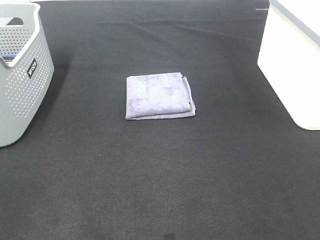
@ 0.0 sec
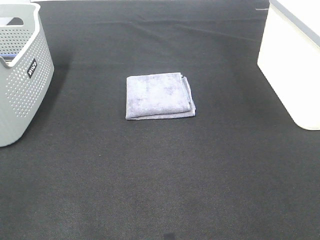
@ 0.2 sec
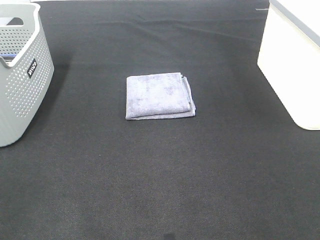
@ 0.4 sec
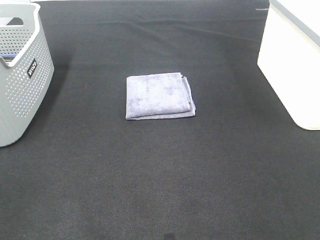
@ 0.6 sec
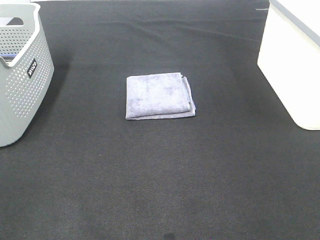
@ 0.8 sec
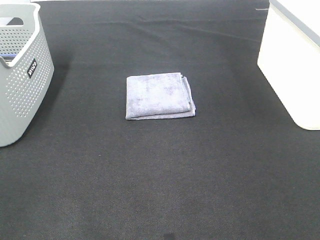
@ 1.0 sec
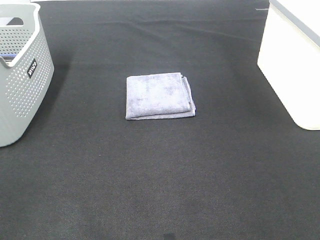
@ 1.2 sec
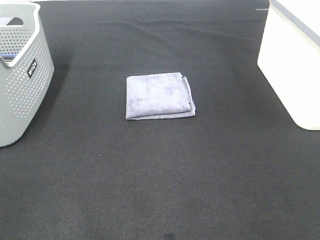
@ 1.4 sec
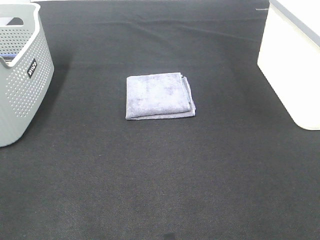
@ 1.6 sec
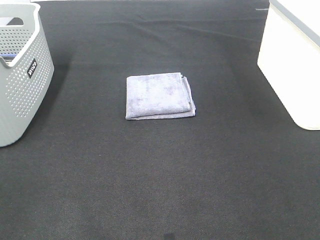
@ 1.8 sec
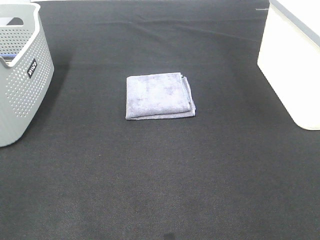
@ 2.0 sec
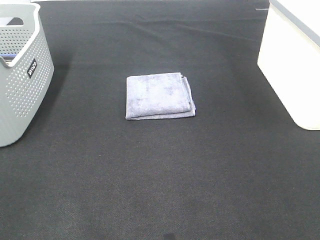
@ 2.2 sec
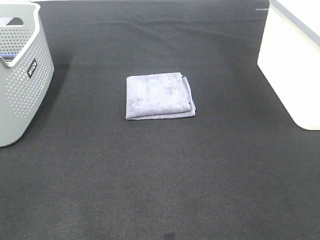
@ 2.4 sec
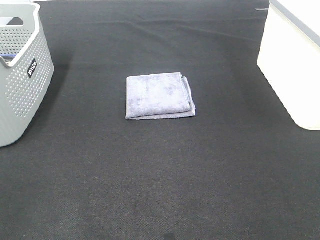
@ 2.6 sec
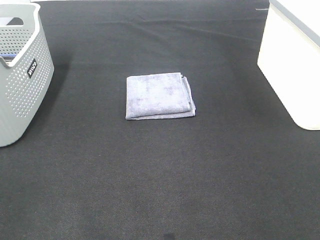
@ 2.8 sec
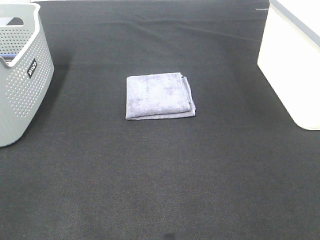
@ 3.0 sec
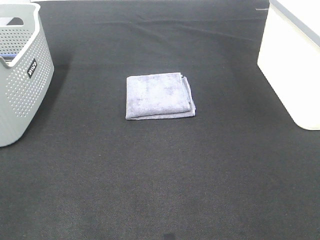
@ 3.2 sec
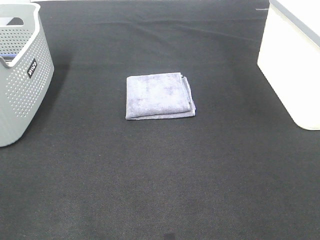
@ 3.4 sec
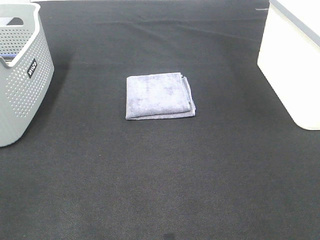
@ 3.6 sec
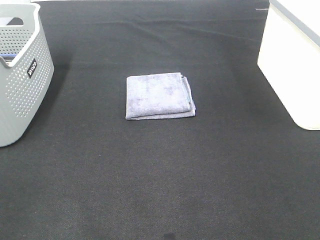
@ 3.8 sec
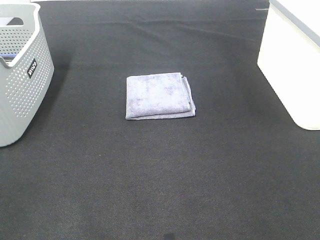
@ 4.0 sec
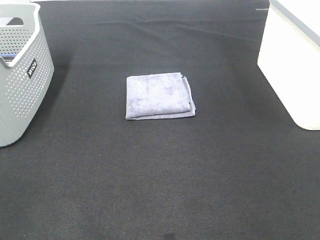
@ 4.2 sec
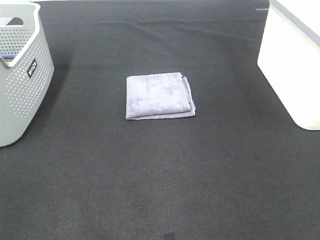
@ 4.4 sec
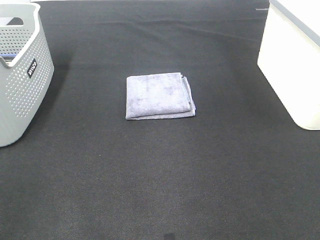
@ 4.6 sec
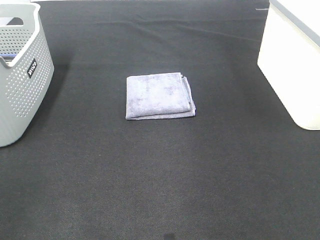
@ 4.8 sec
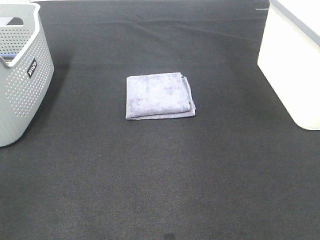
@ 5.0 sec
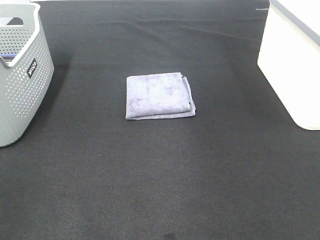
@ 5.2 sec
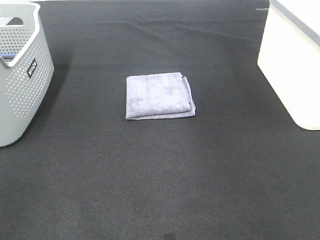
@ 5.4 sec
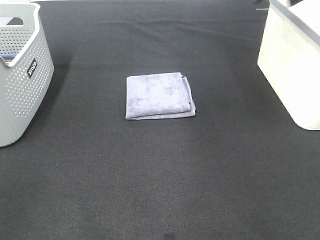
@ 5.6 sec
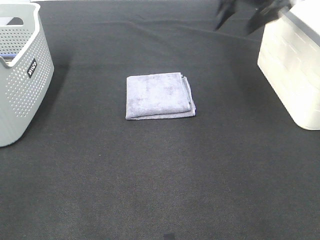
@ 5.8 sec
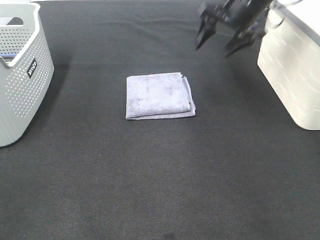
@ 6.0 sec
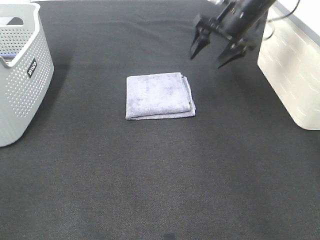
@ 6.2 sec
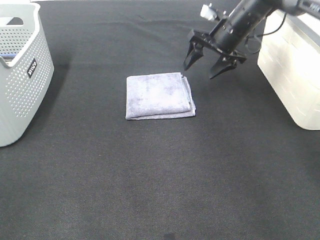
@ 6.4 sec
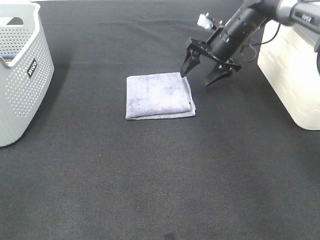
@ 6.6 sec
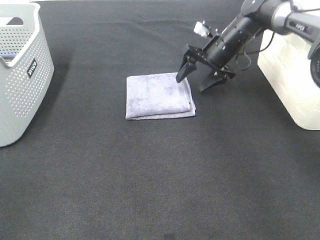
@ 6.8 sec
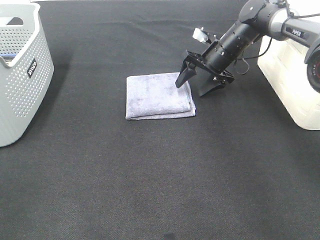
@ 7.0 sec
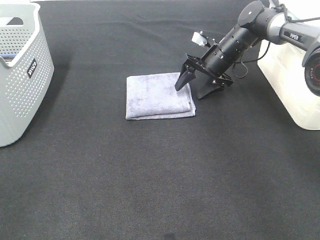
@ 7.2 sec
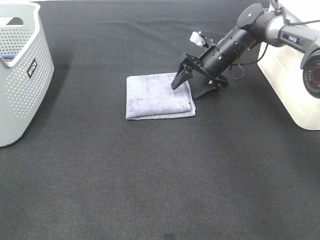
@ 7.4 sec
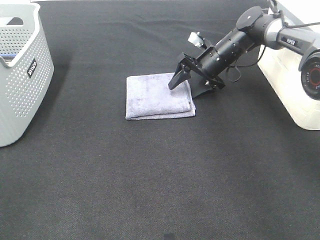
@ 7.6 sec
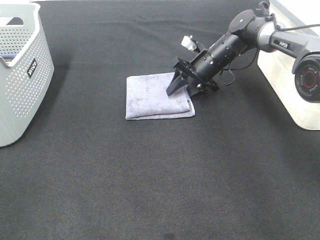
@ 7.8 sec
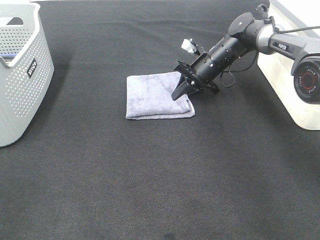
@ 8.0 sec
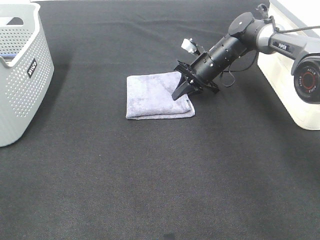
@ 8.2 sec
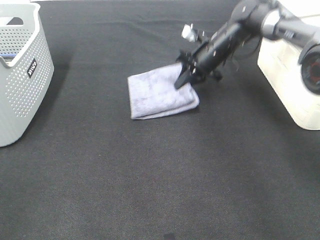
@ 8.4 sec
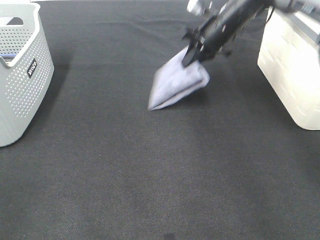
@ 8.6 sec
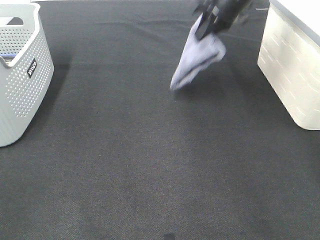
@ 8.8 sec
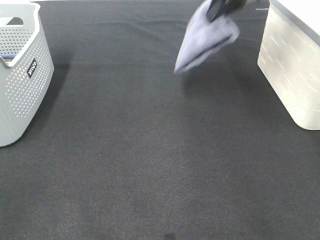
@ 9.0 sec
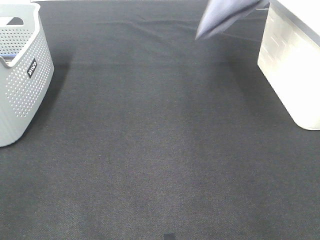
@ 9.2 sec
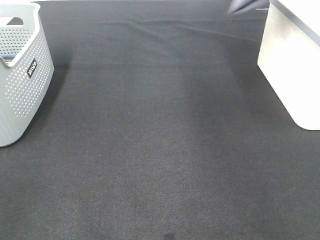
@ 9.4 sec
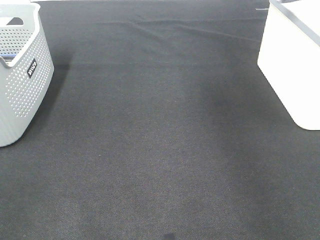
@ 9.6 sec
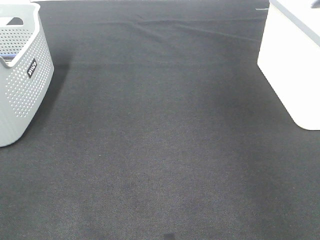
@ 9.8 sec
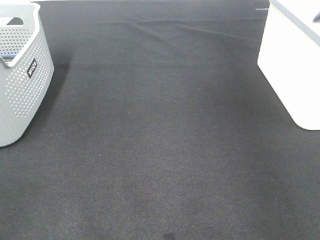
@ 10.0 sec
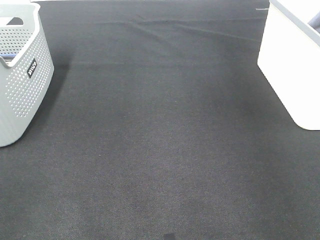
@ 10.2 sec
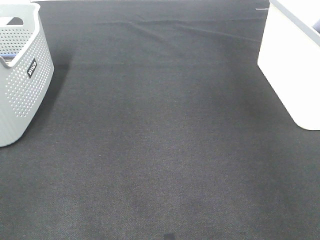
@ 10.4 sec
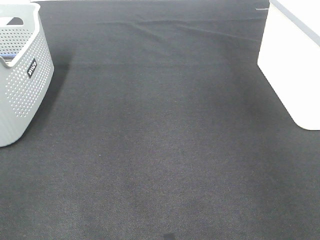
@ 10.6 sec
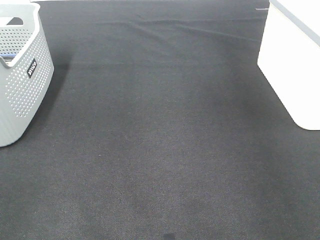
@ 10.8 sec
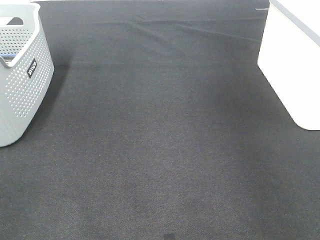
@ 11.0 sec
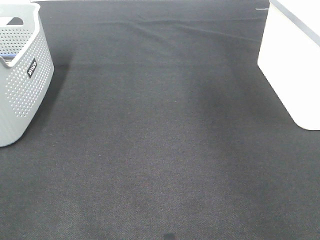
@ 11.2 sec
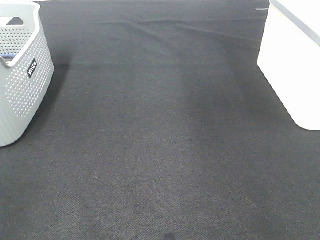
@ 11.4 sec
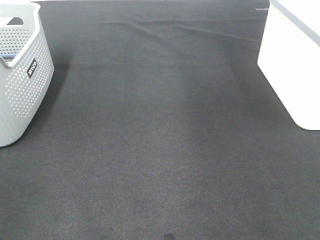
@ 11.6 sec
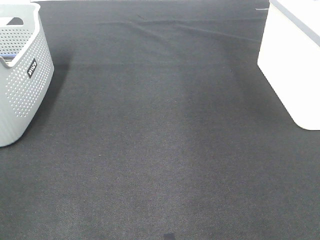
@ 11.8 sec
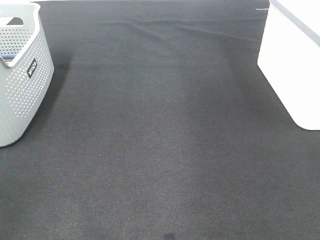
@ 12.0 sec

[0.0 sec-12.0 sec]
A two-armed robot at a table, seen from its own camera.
Step, 0.0 sec to 8.0 sec: Right hand: grab the folded grey towel.
Step, 8.2 sec to 10.6 sec: Right hand: place the grey towel in right basket.
0.0 sec to 3.0 sec: The two grippers keep their place.
4.4 sec to 6.0 sec: The right gripper shifts about 40 cm forward.
6.0 sec to 7.6 sec: The right gripper heads downward, covering roughly 15 cm.
7.6 sec to 9.0 sec: The right gripper is displaced upward by approximately 20 cm, and closes up.
9.0 sec to 10.4 sec: The right gripper is displaced to the right by approximately 25 cm.

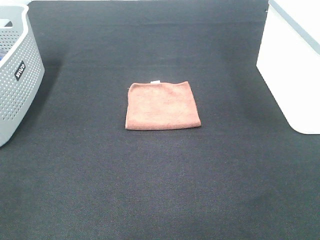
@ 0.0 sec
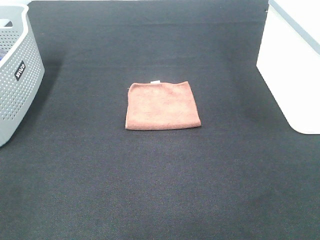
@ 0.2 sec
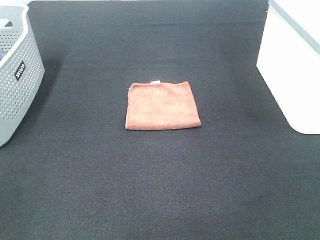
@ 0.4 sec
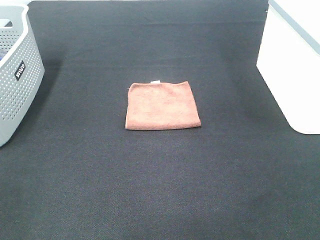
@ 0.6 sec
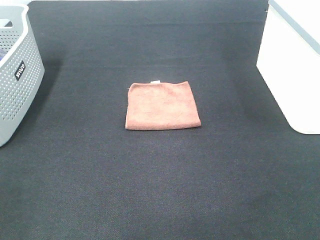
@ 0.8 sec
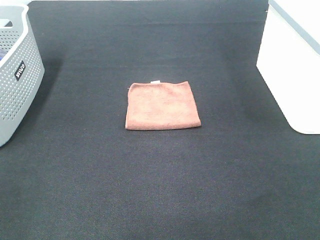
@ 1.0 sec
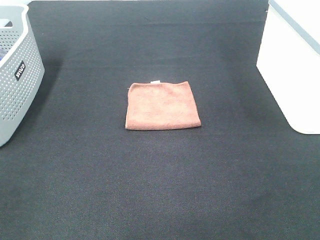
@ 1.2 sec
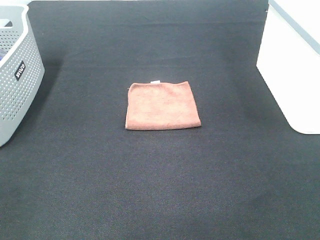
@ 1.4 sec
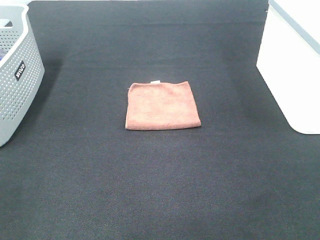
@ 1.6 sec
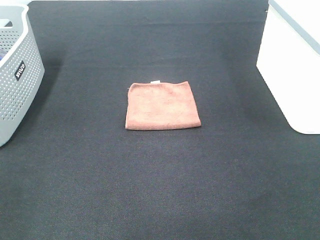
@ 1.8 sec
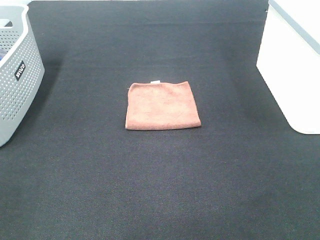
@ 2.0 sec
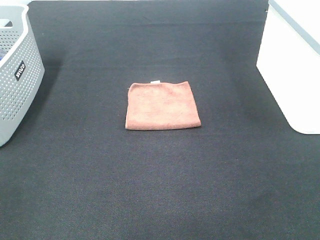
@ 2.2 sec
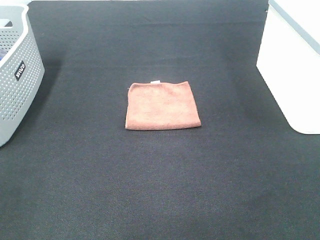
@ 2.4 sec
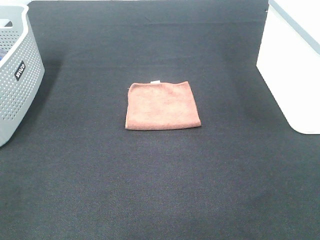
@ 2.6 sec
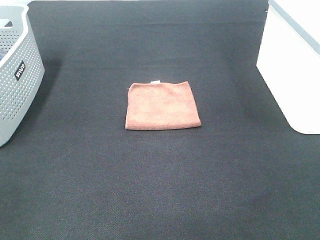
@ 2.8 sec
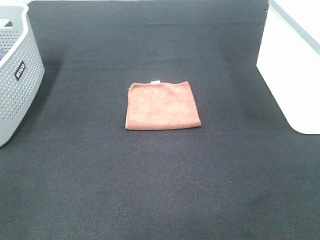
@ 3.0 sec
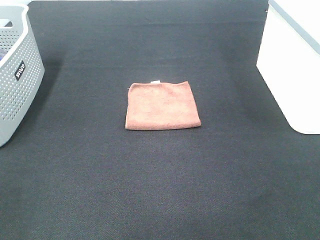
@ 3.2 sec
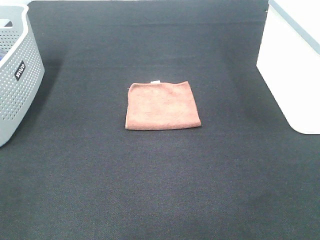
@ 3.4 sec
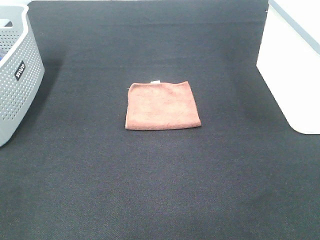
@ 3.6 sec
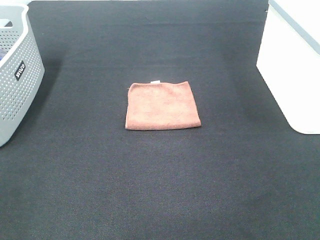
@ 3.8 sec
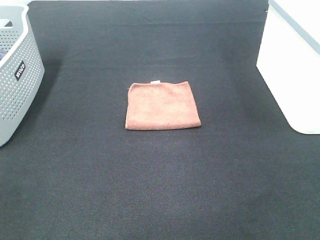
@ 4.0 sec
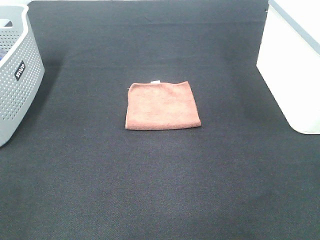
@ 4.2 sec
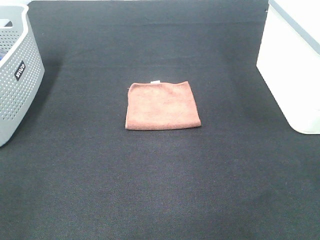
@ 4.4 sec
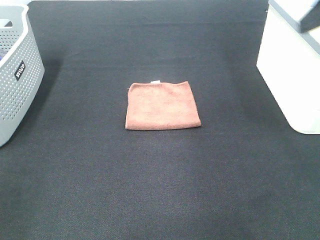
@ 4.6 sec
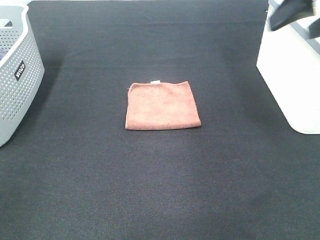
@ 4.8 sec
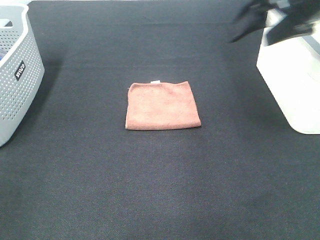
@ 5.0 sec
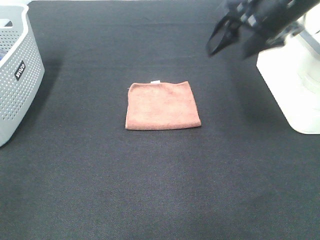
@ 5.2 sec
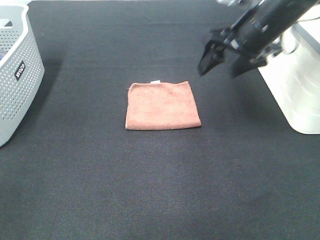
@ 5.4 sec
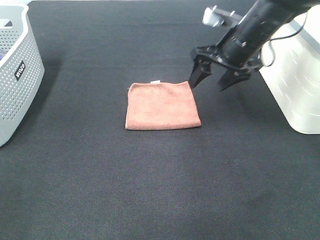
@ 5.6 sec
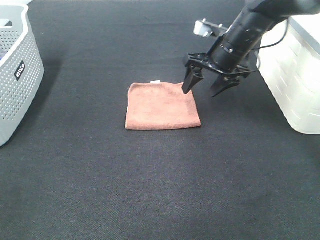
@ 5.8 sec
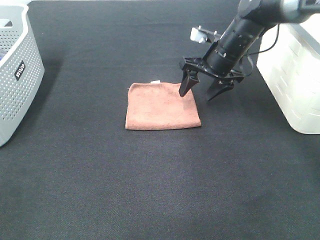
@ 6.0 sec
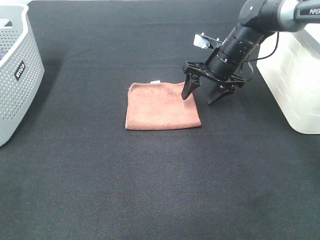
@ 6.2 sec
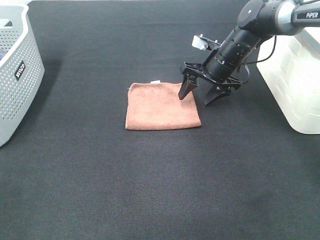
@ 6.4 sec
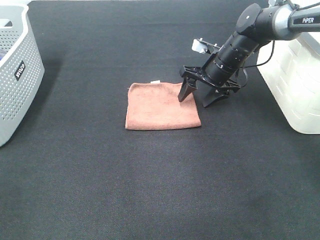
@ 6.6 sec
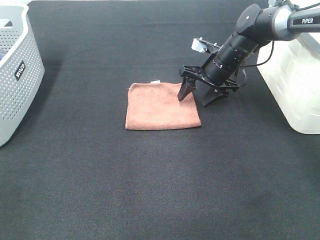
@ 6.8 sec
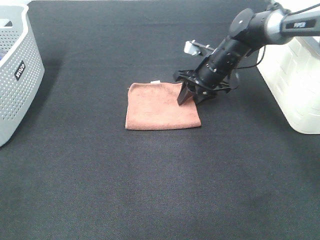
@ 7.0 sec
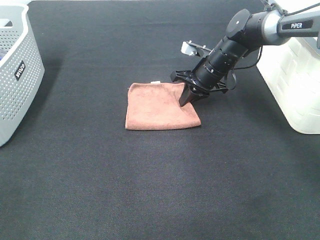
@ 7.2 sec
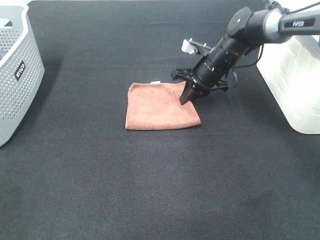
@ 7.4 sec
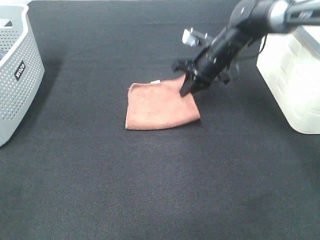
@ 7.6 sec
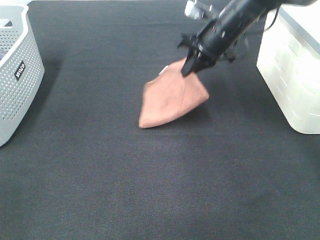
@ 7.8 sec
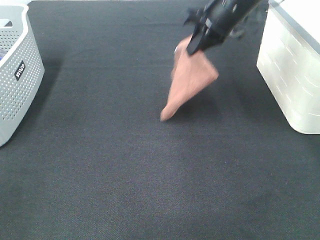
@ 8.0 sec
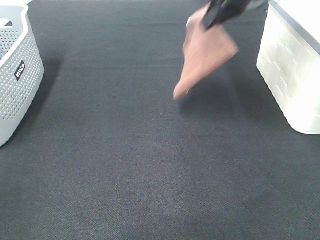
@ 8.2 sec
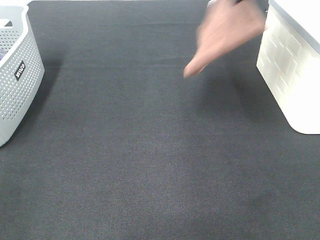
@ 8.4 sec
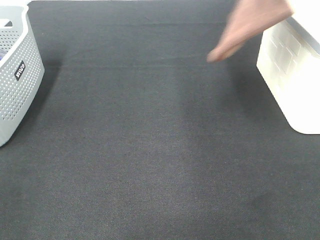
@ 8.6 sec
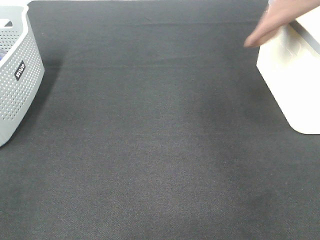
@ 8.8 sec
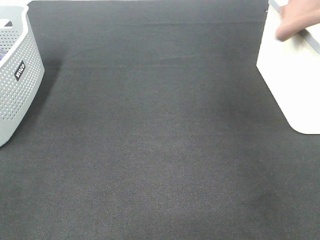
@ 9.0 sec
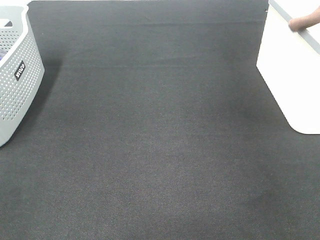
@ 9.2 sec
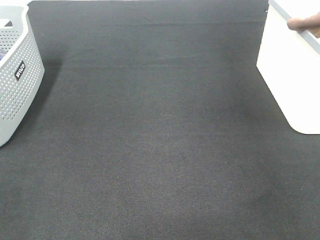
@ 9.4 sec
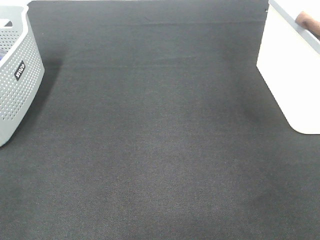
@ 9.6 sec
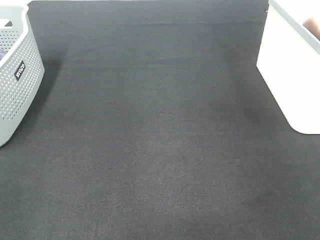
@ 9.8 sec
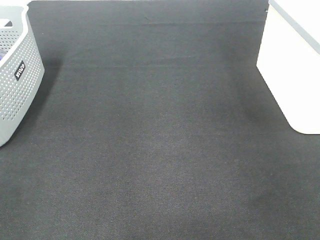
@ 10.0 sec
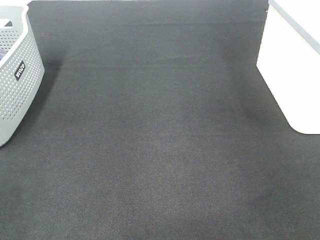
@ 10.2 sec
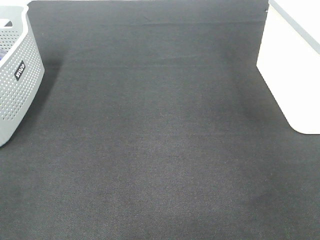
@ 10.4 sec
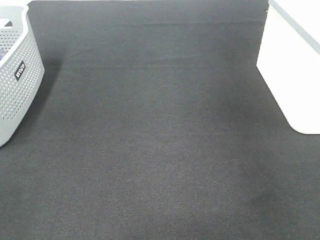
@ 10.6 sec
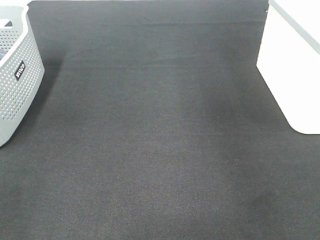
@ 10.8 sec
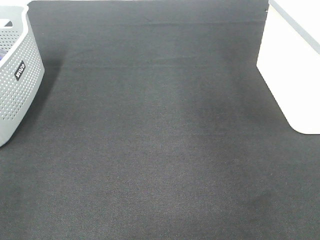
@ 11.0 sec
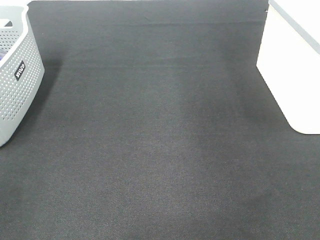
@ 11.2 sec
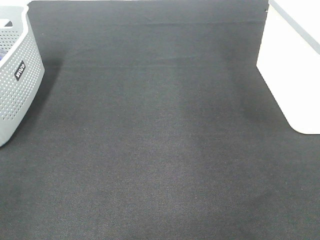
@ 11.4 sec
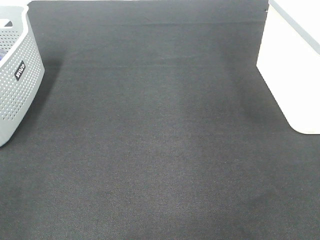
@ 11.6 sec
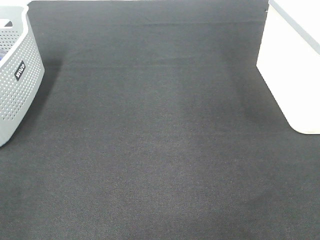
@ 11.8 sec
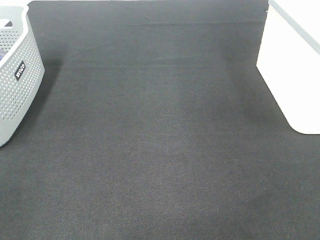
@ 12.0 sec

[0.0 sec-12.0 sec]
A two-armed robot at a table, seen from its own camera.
Step, 0.0 sec to 7.6 sec: Right hand: grab the folded brown towel.
Step, 7.8 sec to 10.4 sec: Right hand: place the brown towel in right basket.
0.0 sec to 3.0 sec: Neither gripper changes place.
4.4 sec to 6.0 sec: The right gripper moves forward, downward and to the left, roughly 35 cm.
6.0 sec to 7.6 sec: The right gripper closes its fingers.
7.6 sec to 9.0 sec: The right gripper goes approximately 35 cm upward and to the right.
9.0 sec to 10.4 sec: The right gripper moves downward, approximately 5 cm, and opens up.
